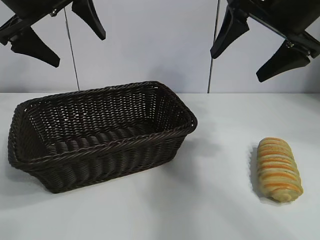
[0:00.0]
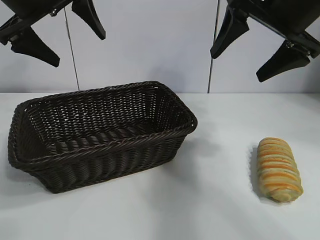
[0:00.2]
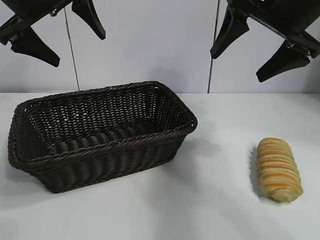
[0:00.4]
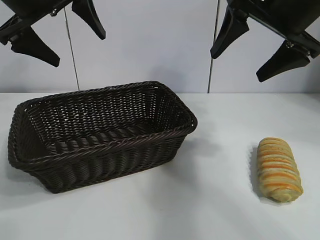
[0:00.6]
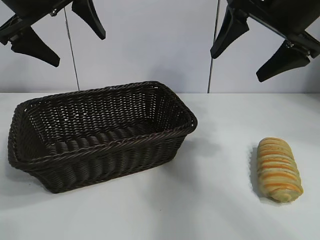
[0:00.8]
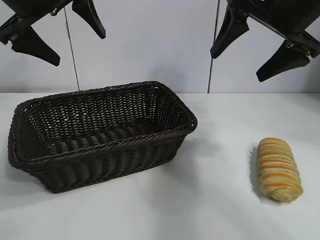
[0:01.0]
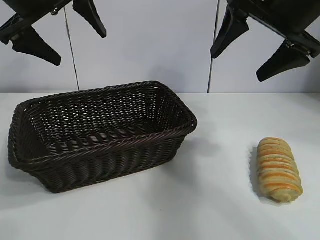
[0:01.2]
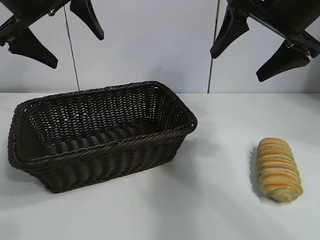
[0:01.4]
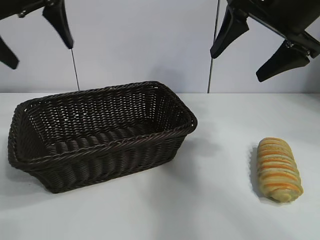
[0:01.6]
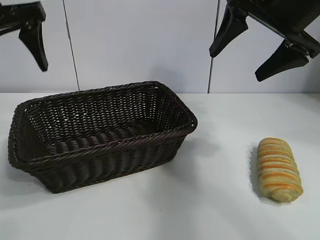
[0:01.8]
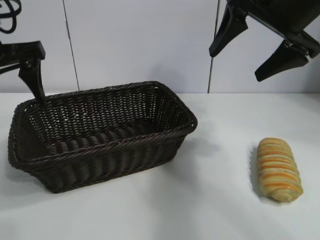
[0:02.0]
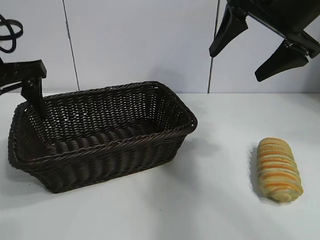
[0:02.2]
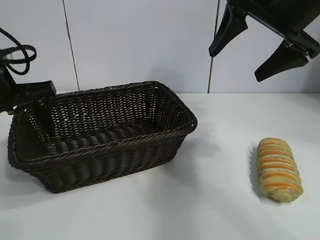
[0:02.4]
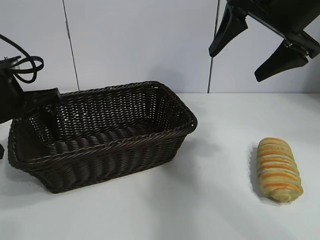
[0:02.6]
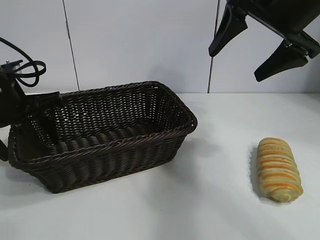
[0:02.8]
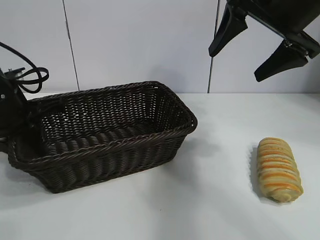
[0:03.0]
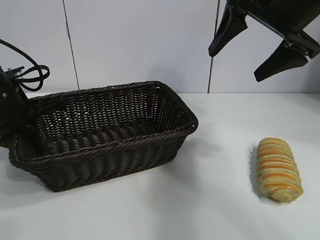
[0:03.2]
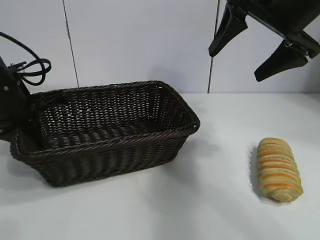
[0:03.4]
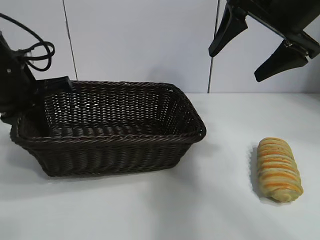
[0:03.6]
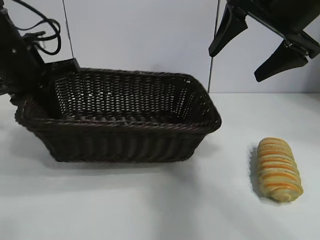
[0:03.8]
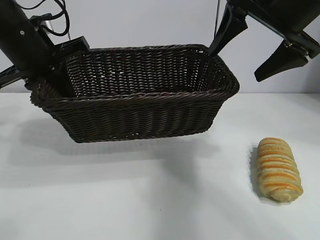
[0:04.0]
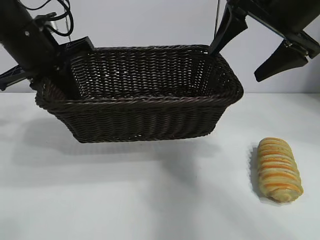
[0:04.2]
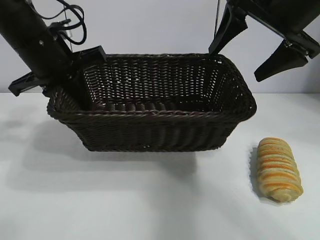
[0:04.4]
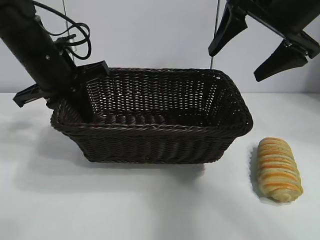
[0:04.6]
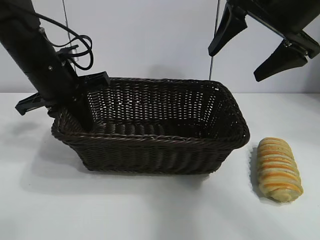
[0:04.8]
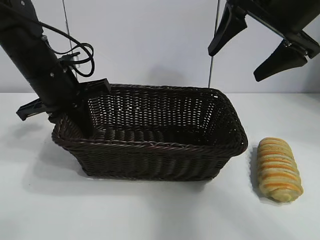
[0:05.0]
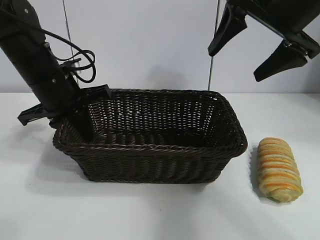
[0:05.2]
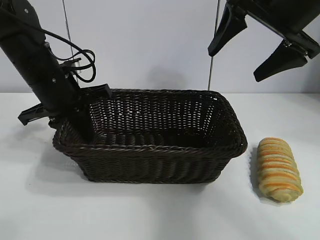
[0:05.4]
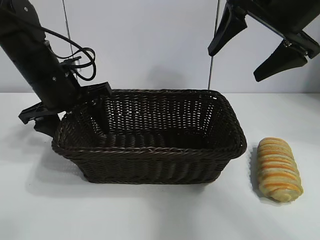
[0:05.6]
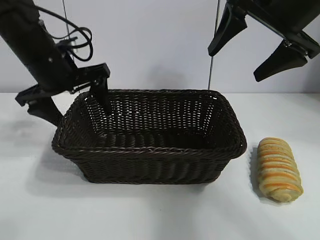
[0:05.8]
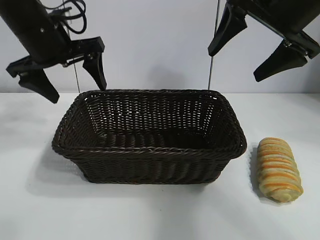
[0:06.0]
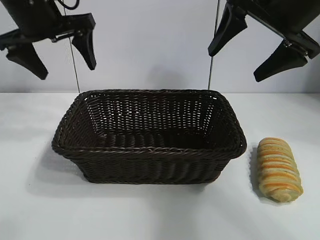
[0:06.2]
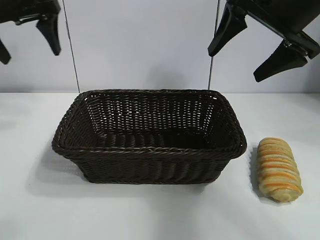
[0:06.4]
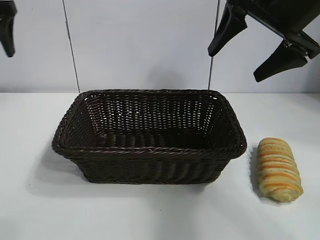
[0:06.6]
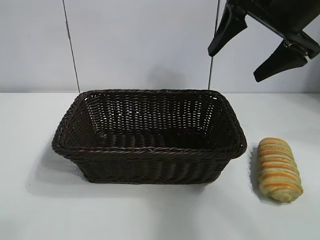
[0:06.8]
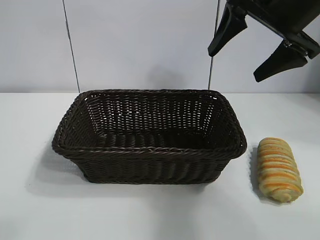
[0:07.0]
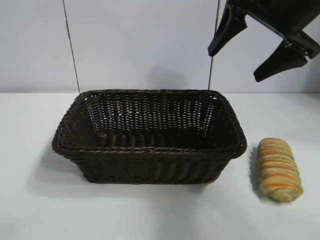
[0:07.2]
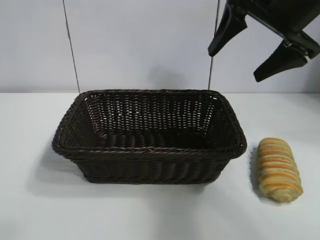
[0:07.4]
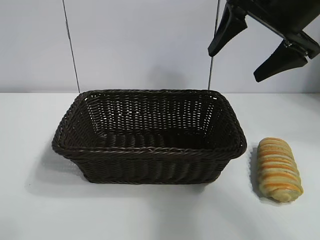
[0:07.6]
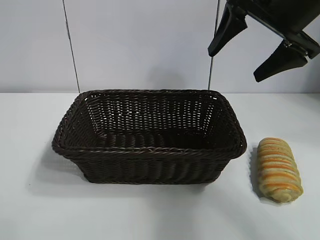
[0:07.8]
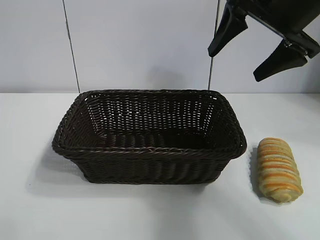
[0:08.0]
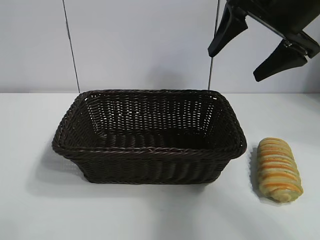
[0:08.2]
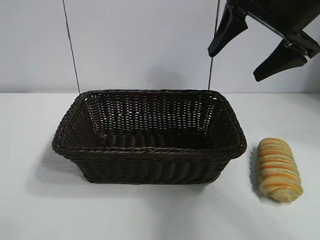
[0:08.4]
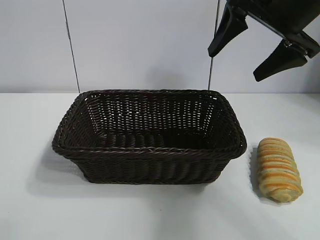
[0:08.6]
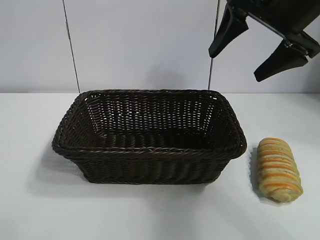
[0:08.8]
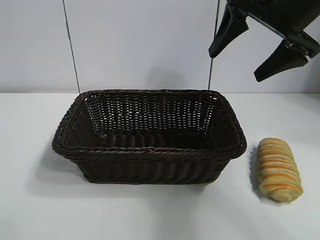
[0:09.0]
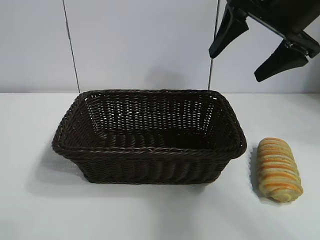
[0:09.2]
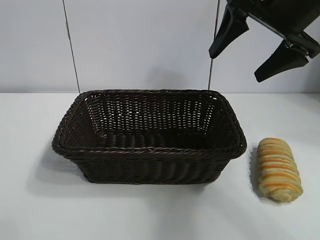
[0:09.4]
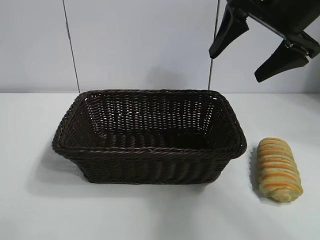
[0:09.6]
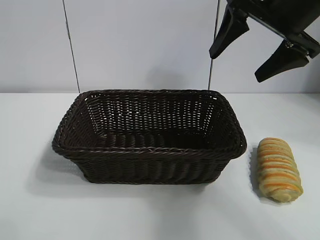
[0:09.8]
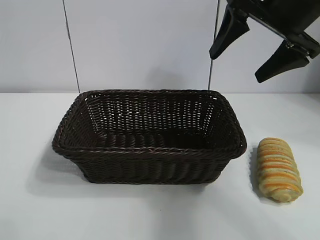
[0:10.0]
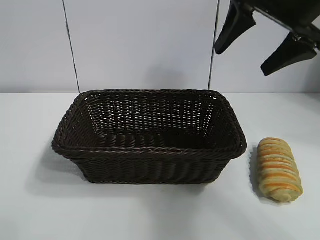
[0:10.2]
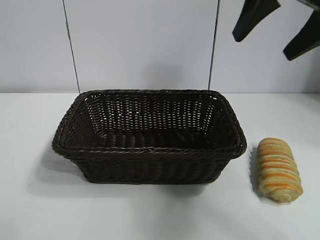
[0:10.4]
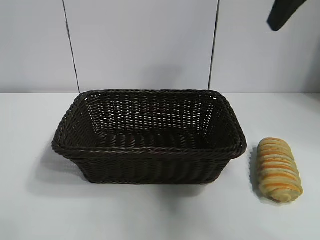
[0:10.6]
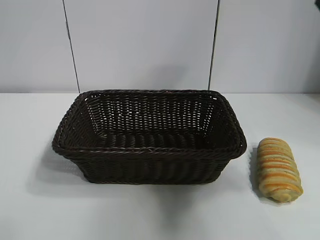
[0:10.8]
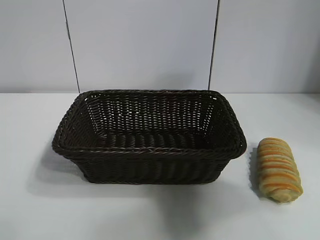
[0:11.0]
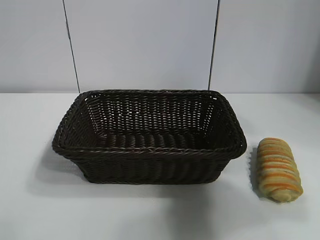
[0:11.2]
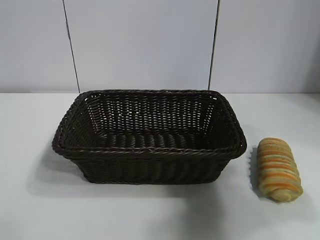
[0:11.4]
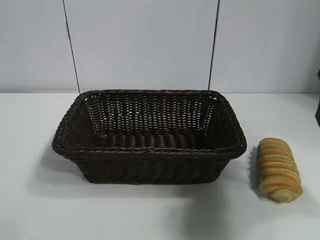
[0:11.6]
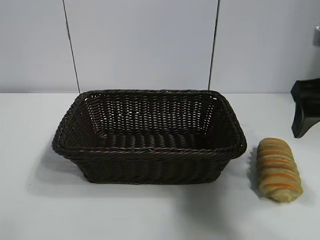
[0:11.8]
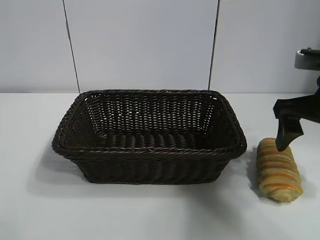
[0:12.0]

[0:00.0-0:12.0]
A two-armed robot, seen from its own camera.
Task of the whole recording: pick up the long bread and put it into the basket.
Step, 0:01.4 to 0:03.0: Grasp the basket with the left gripper.
Step, 0:03.2 to 0:05.6: Place the basket in the center of the table with the left gripper.

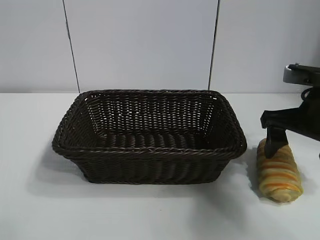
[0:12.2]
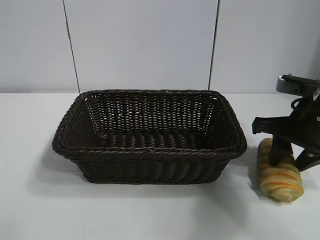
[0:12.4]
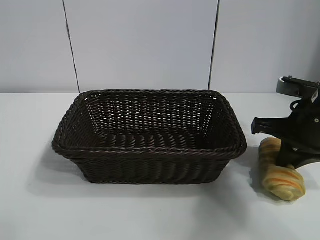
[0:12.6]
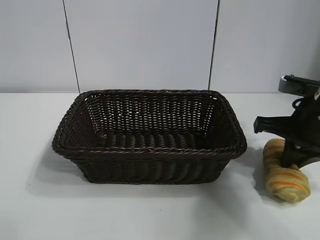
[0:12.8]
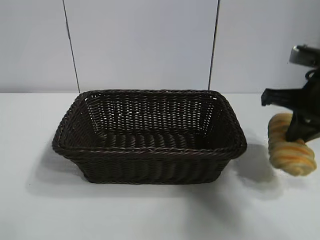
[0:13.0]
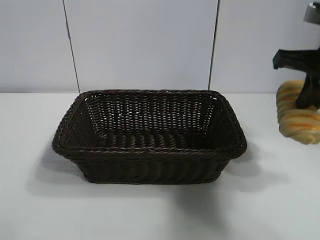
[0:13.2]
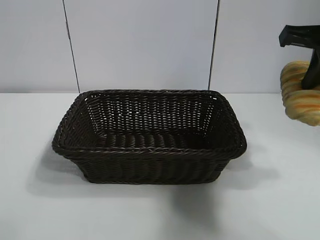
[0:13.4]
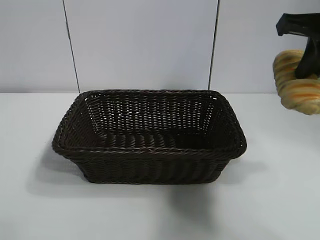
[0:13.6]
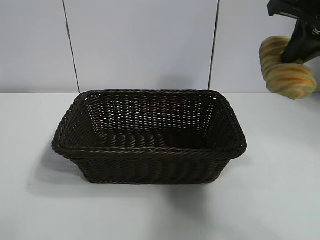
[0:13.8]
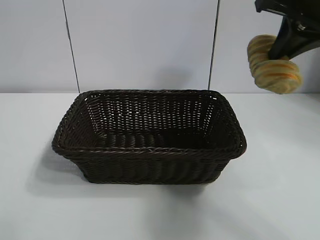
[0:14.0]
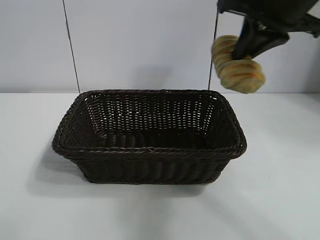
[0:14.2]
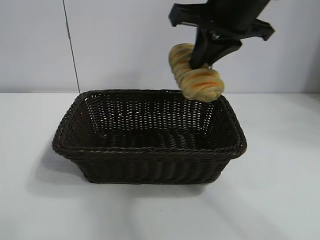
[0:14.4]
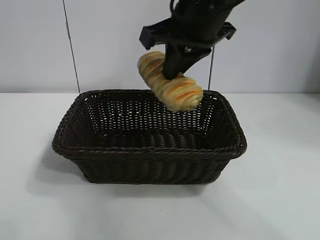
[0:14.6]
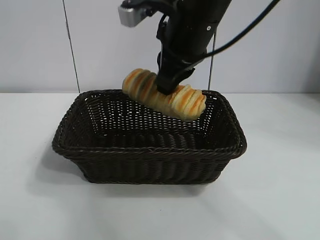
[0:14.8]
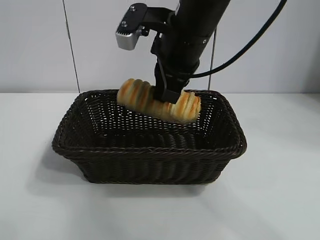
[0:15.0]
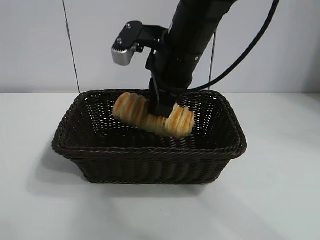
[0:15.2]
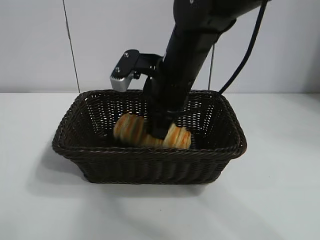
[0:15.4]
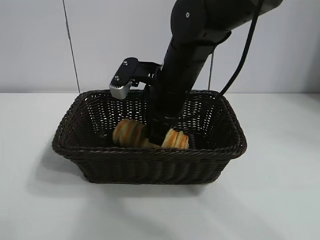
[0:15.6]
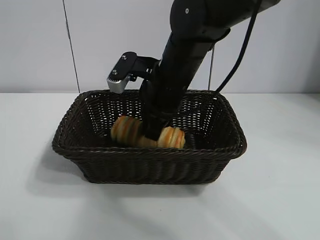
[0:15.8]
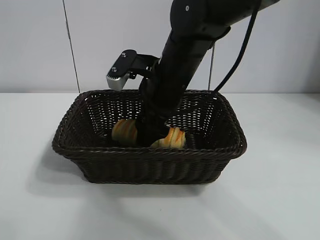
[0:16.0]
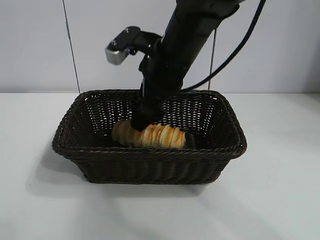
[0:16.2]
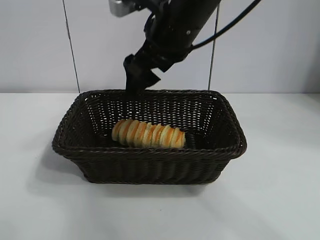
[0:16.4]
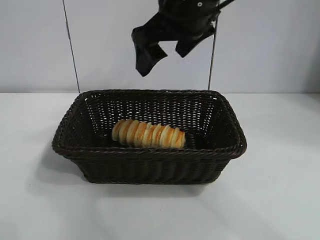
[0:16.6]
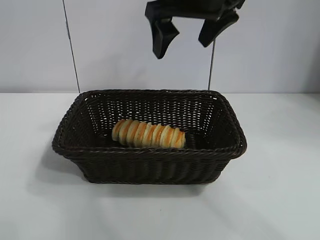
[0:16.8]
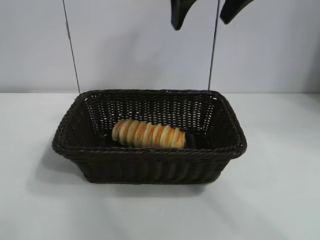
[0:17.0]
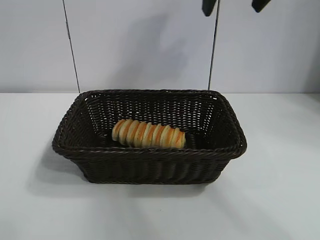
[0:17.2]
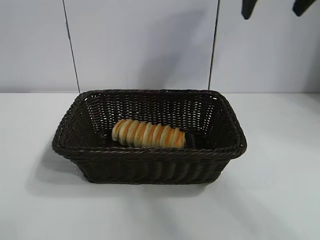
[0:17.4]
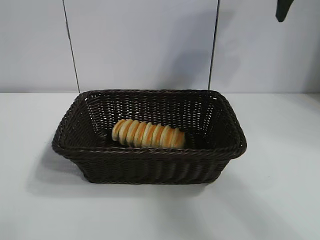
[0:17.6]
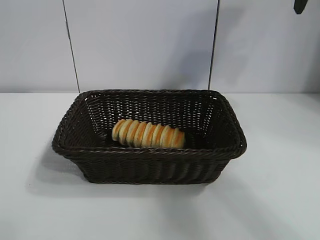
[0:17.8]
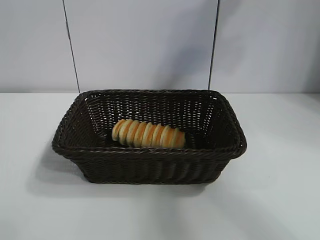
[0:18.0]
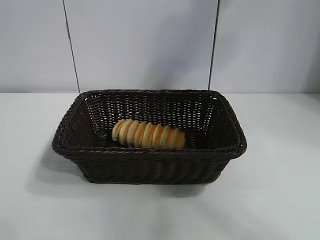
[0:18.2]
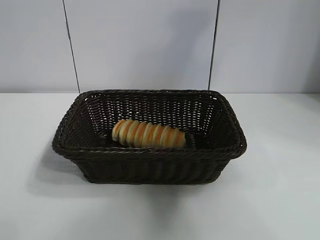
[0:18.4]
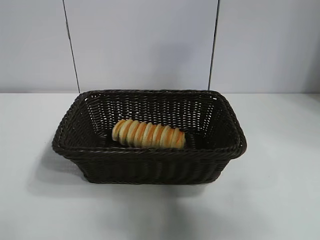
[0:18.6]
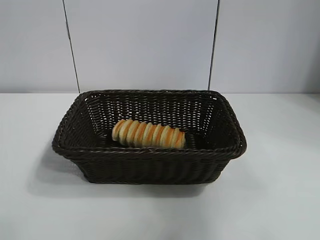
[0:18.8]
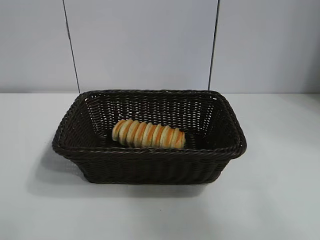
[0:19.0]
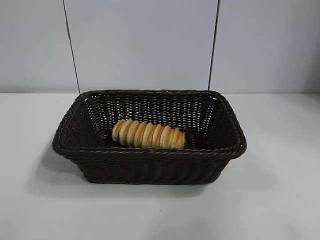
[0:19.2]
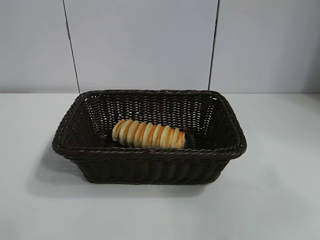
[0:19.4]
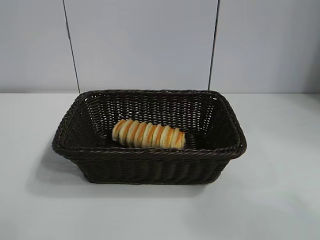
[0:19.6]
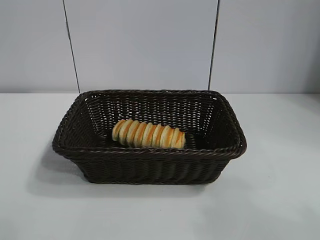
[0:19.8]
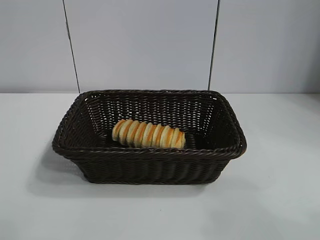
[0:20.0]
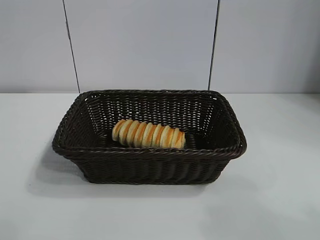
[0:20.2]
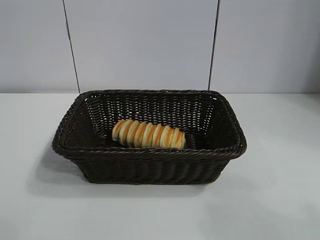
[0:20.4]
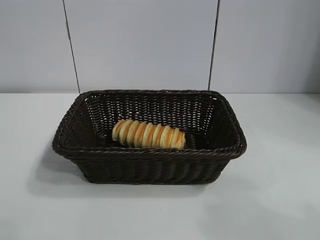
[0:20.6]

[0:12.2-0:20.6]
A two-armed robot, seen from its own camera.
Task of the whole recording: pick up the long bread and put it into the basket.
Step, 0:12.8 to 0:15.8: Place the long bread in the basket with right gripper.
